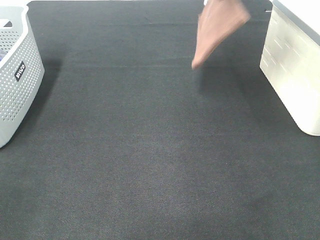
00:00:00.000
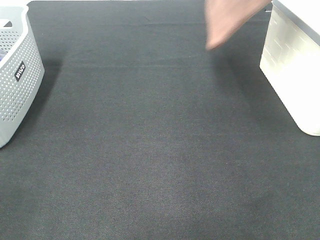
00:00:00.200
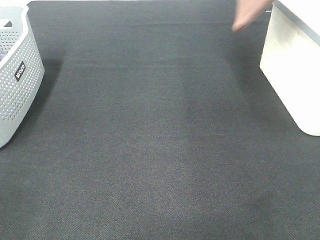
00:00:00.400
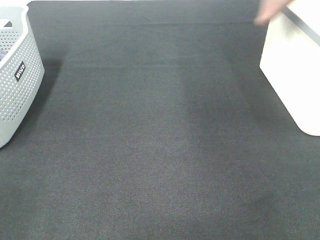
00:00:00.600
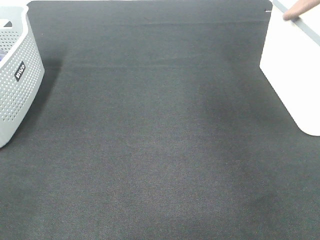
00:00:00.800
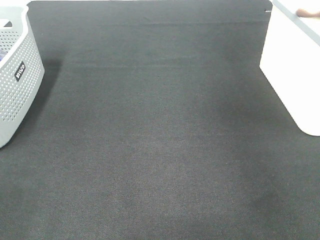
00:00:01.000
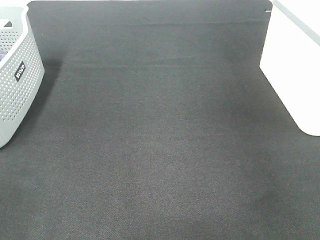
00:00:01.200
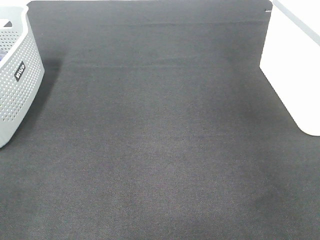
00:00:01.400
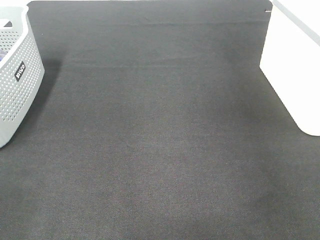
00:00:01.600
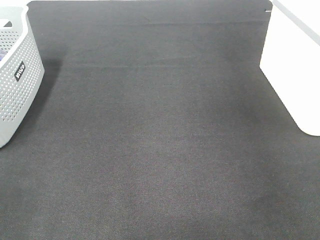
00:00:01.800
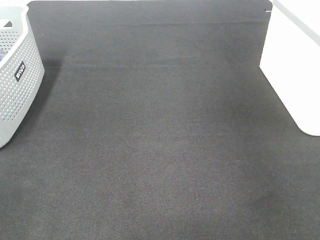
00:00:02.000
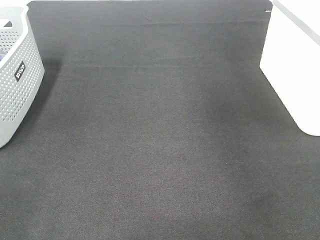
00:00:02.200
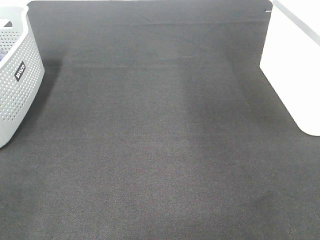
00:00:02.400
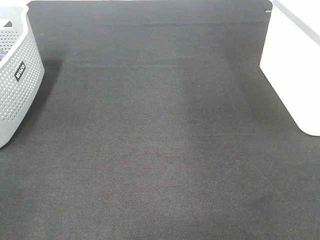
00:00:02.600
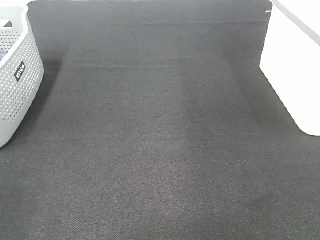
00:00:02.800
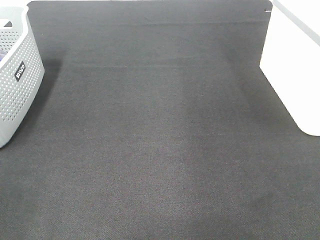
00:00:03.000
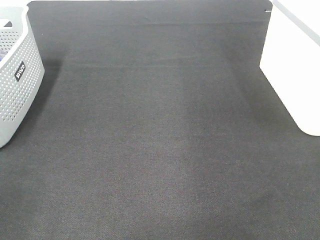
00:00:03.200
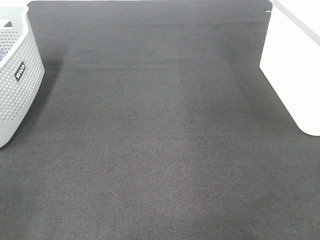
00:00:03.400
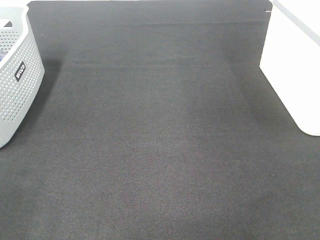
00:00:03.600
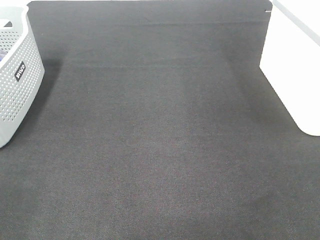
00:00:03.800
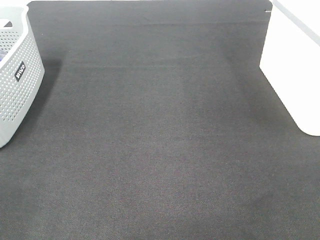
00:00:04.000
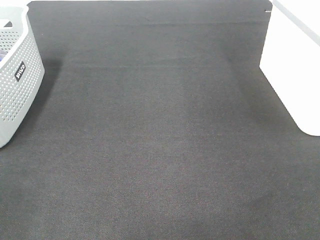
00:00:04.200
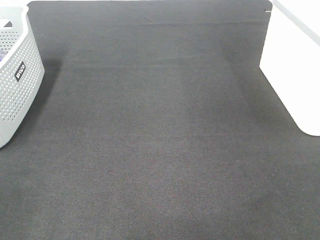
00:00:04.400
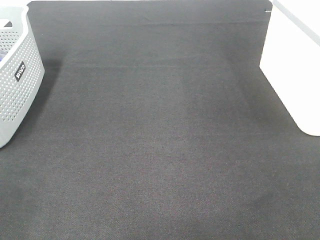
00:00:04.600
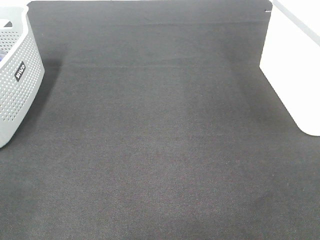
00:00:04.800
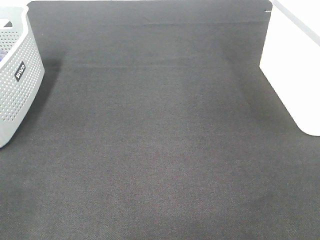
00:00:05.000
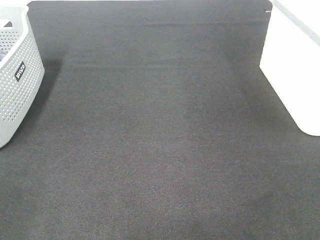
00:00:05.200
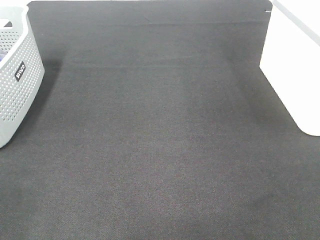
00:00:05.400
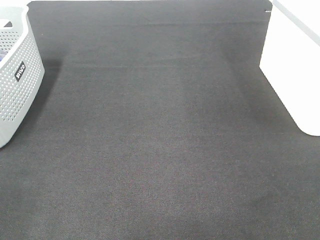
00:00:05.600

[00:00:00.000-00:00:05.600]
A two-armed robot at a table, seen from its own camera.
Step, 00:00:00.000 to 00:00:01.800: Right hand: place the brown towel in right basket.
00:00:00.000 to 00:00:01.400: The right gripper shifts roughly 25 cm to the right.

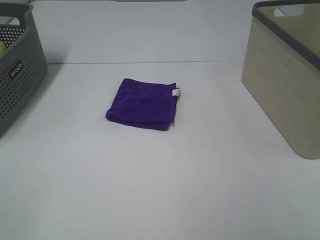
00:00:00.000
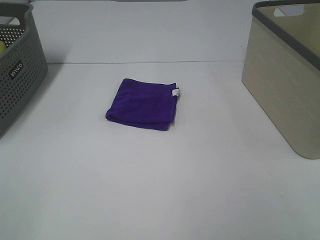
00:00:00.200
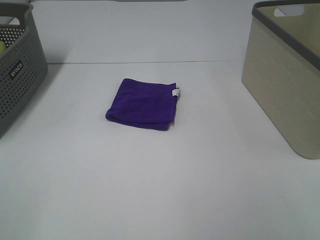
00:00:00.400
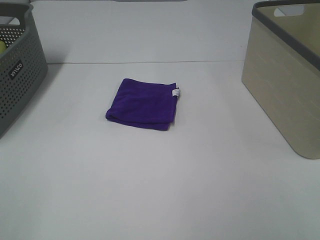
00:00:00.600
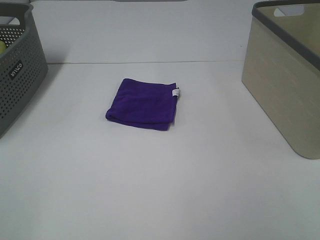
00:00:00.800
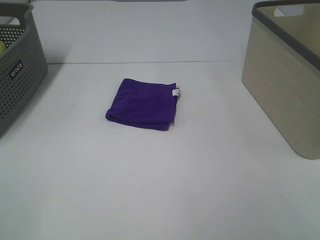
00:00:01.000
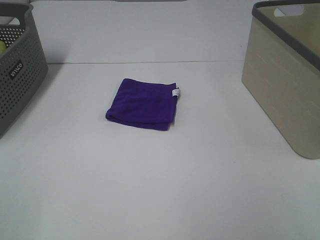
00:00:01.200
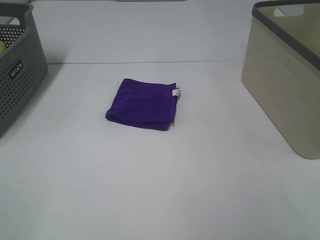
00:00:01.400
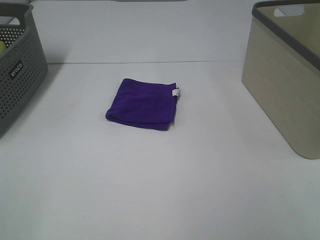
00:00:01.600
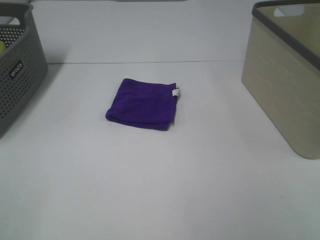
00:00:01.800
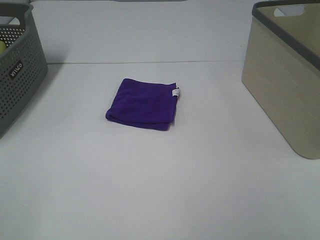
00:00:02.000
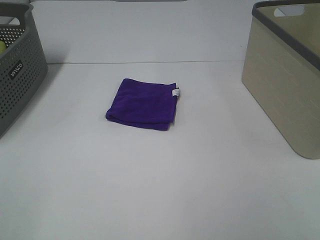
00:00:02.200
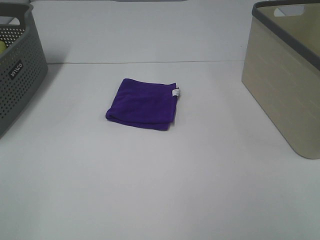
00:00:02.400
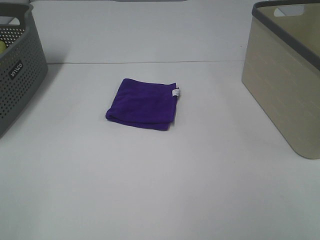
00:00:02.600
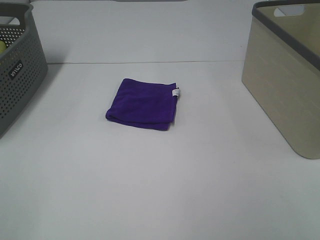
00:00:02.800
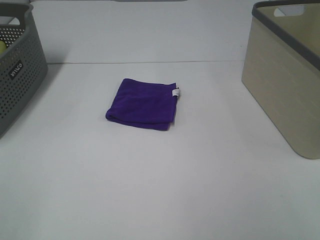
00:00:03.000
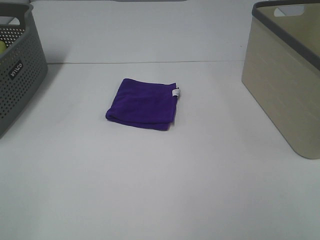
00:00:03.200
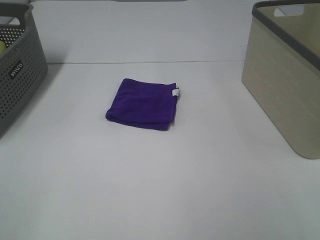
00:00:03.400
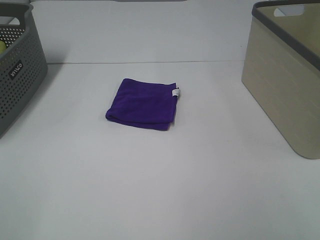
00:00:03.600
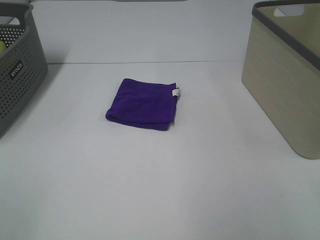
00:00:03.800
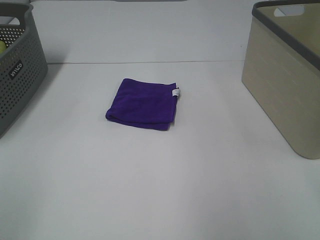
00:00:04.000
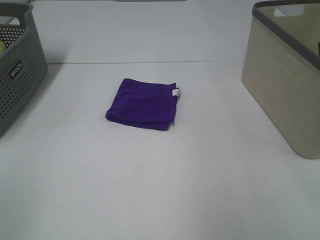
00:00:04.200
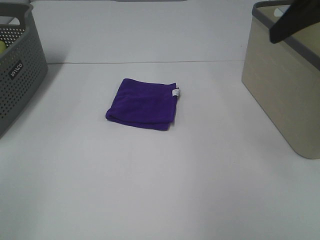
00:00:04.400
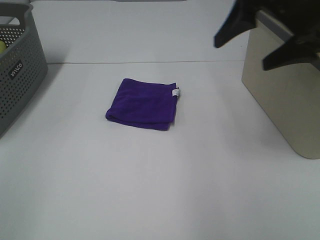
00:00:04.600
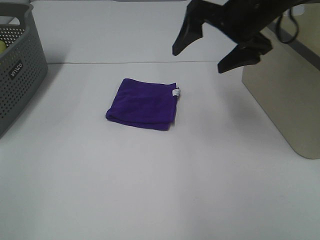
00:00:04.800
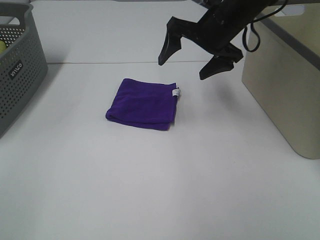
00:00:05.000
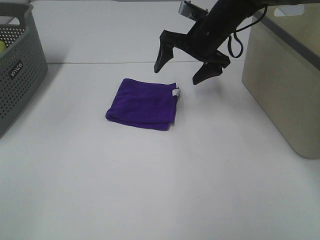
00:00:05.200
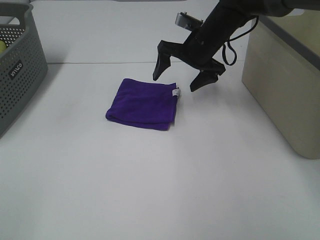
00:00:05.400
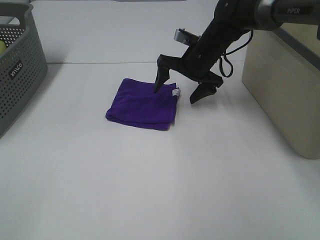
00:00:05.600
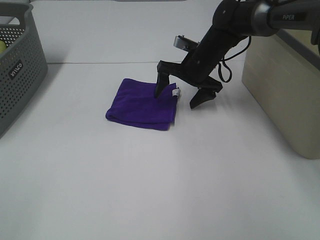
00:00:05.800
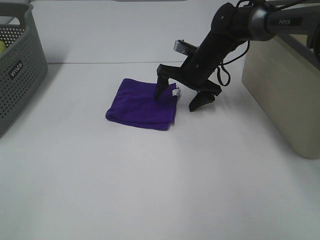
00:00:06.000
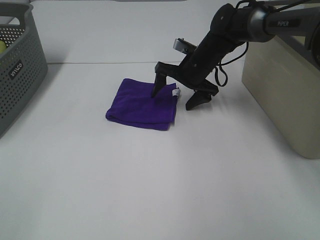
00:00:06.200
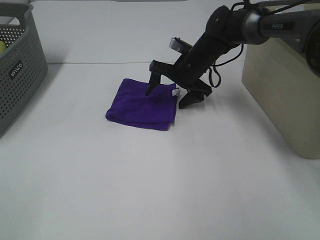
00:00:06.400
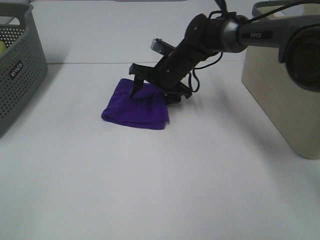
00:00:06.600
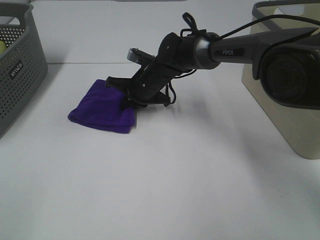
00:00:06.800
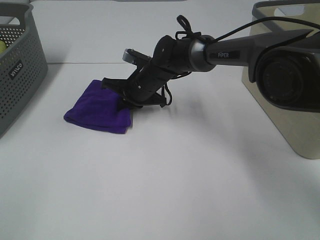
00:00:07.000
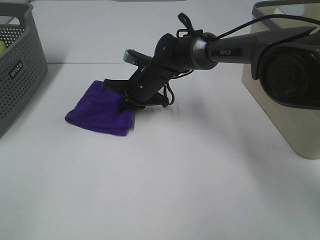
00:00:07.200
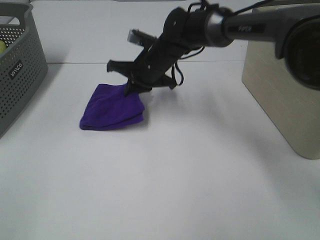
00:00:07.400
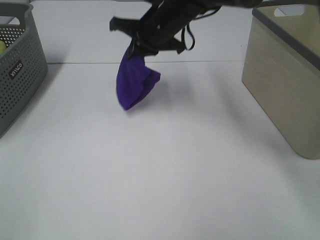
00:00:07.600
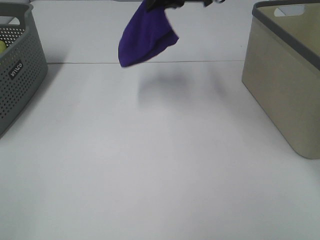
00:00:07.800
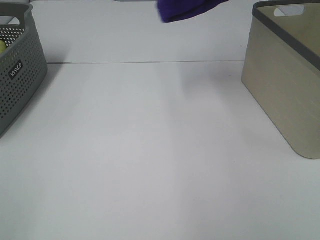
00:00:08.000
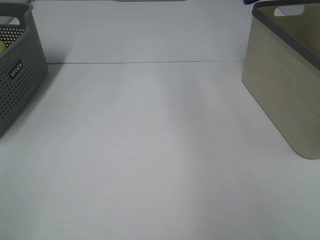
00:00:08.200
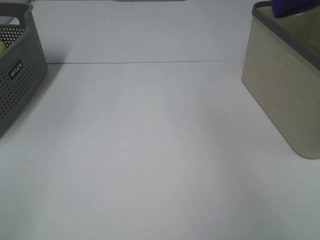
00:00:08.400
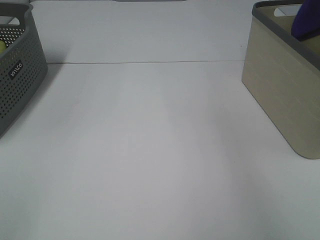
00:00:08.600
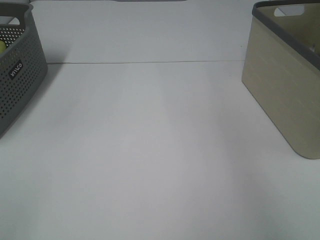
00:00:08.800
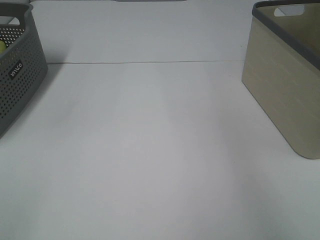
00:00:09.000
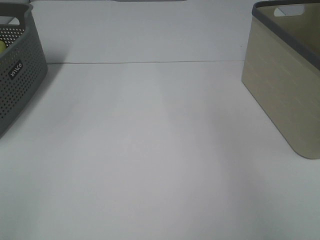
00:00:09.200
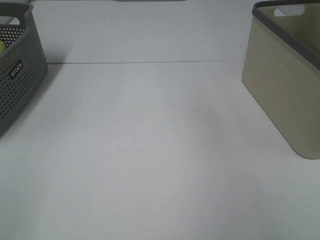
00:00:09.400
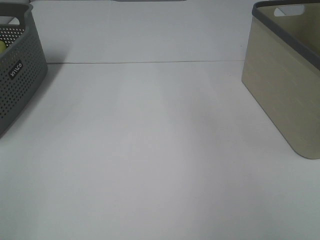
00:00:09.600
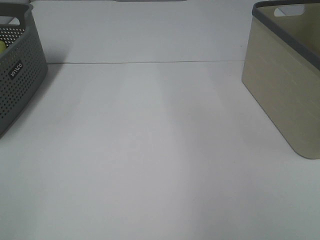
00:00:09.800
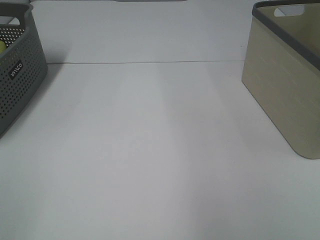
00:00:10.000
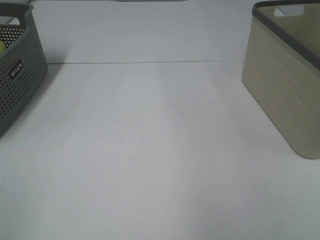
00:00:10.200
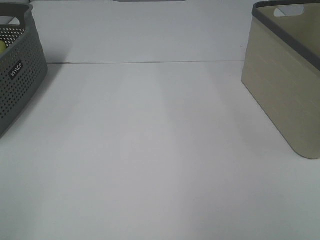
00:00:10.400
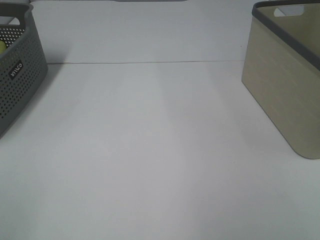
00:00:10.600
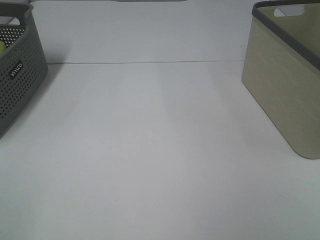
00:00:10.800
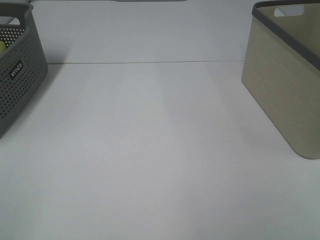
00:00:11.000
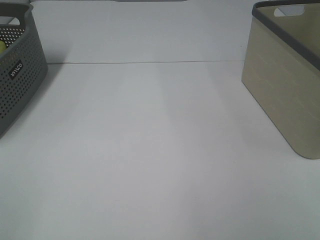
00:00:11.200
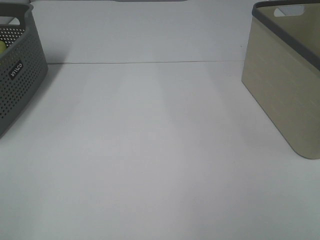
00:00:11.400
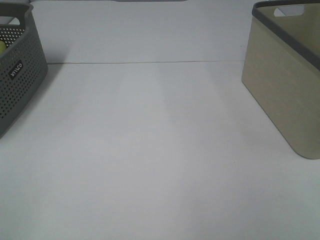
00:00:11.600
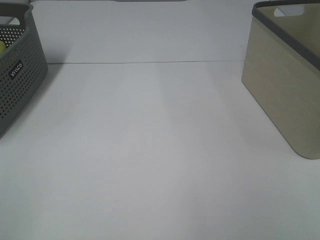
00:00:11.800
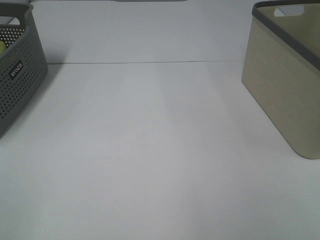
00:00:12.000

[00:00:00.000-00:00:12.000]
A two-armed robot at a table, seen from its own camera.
Step, 00:00:00.000 to 00:00:06.800: Right hand: grab the folded purple towel.
Step, 00:00:07.000 to 00:00:09.000: Right hand: place the purple towel in right basket.
00:00:00.000 to 00:00:03.000: Neither gripper changes place.
00:00:03.000 to 00:00:04.400: The right gripper moves forward, some 25 cm.
00:00:04.400 to 00:00:06.000: The right gripper shifts approximately 35 cm downward, forward and to the left.
00:00:06.000 to 00:00:07.600: The right gripper heads upward and to the left, covering some 15 cm, and closes its fingers.
00:00:07.600 to 00:00:09.000: The right gripper travels to the right by approximately 35 cm, and opens its fingers.

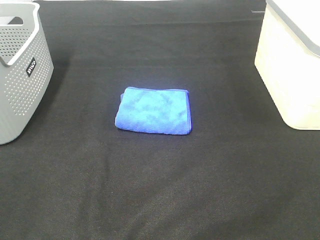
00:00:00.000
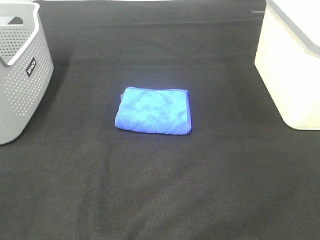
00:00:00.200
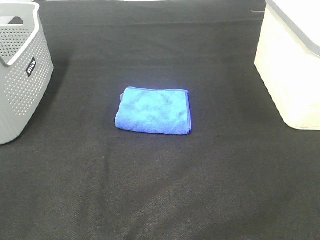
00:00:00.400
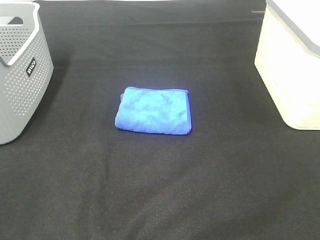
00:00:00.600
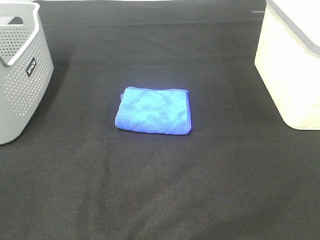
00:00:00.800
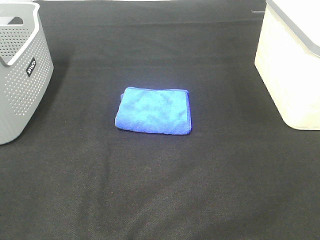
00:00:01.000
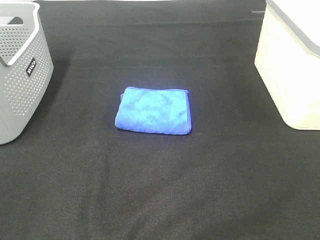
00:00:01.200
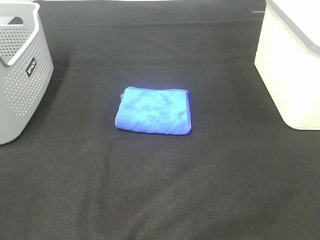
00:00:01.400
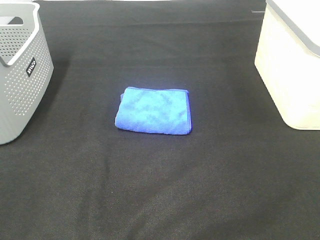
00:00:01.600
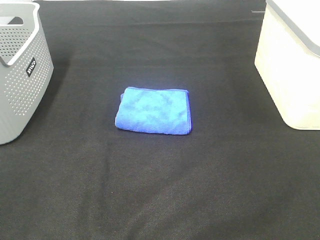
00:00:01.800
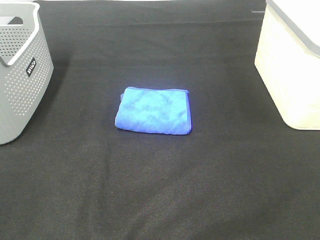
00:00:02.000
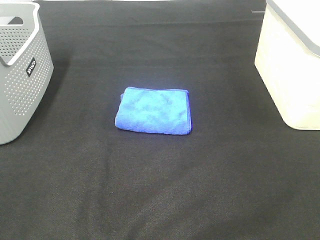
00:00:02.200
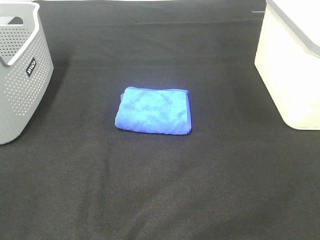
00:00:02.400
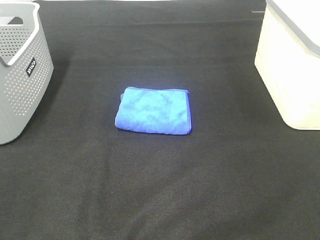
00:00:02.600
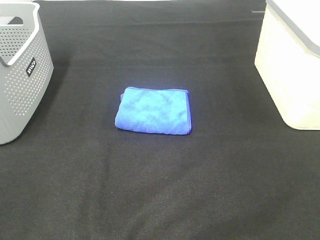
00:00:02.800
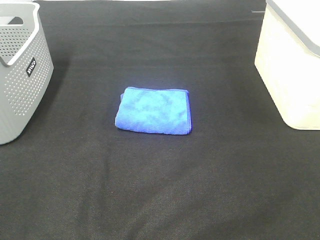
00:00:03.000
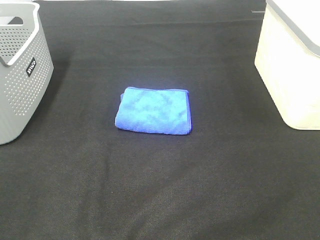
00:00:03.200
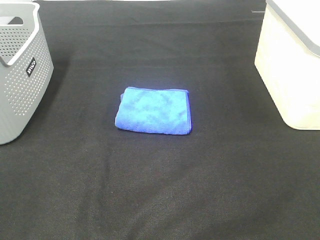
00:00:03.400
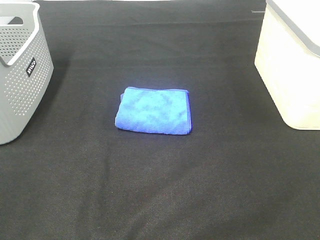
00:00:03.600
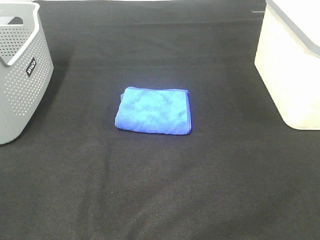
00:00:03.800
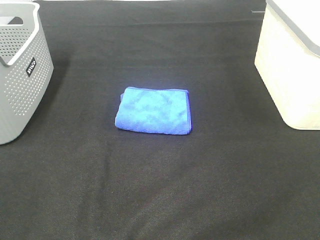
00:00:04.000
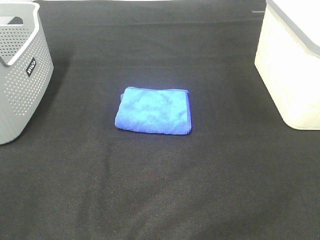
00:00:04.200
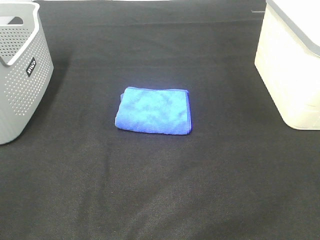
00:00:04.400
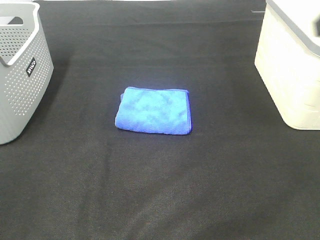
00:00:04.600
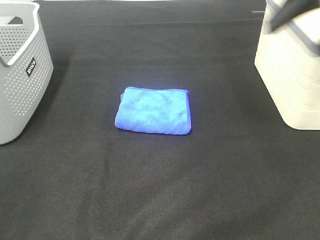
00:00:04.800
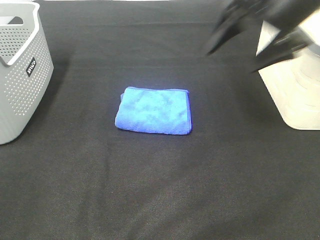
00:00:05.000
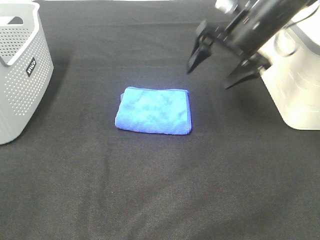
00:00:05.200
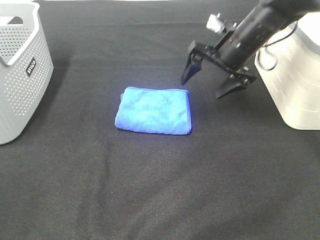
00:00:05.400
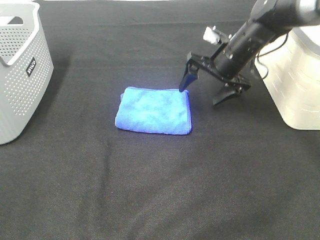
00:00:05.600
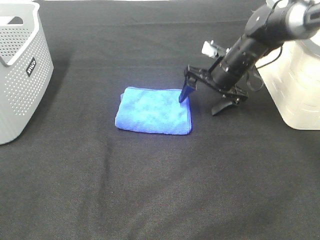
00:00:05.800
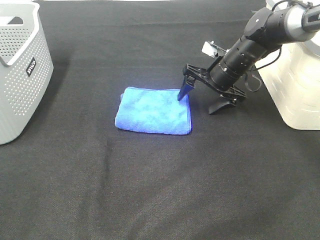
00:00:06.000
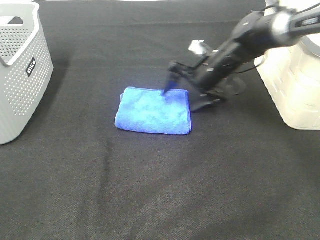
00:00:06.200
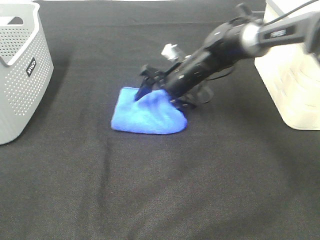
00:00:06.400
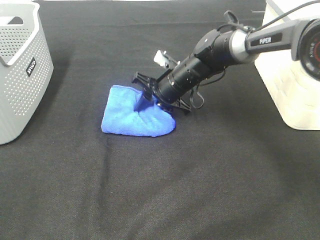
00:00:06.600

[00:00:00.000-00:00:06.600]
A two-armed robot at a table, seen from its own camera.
00:00:00.000 to 00:00:03.200: Neither gripper changes place.
00:00:03.200 to 00:00:05.000: The right gripper travels forward by roughly 35 cm.
00:00:05.000 to 00:00:06.600: The right gripper moves downward and to the left, some 25 cm, and closes up.
